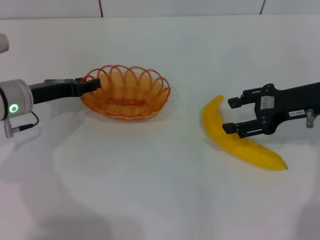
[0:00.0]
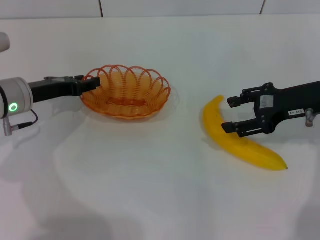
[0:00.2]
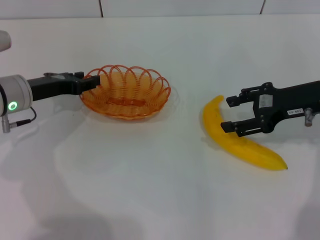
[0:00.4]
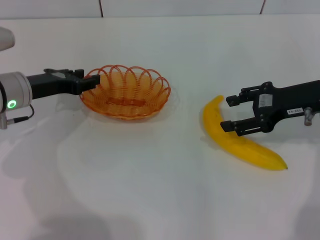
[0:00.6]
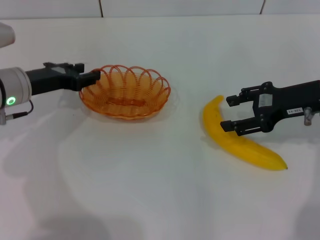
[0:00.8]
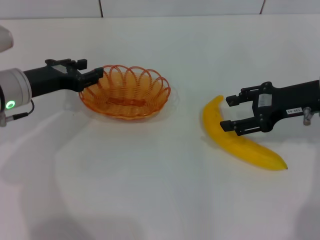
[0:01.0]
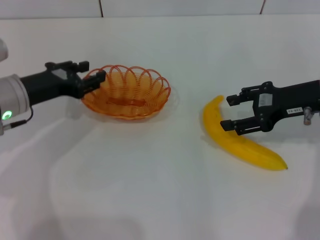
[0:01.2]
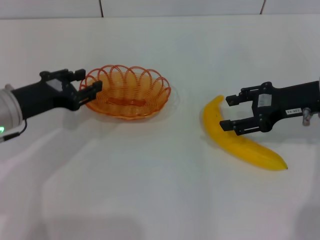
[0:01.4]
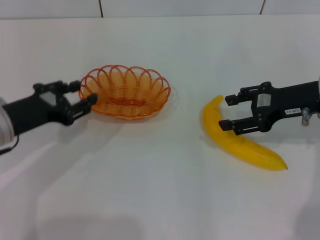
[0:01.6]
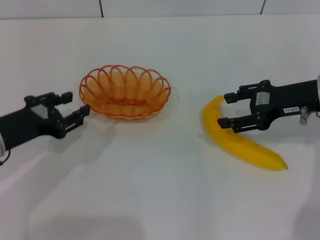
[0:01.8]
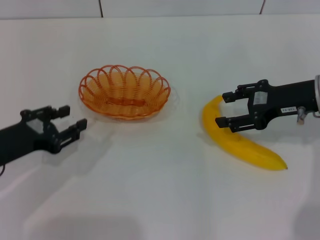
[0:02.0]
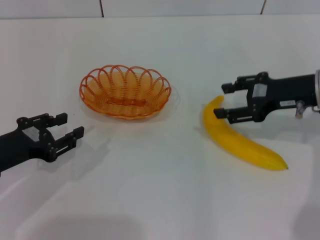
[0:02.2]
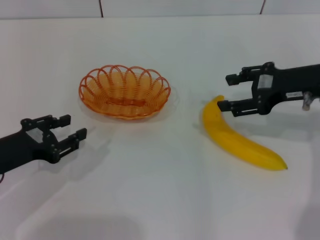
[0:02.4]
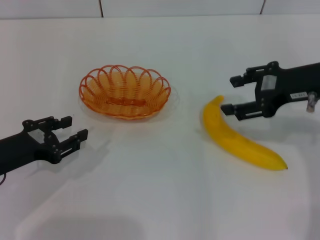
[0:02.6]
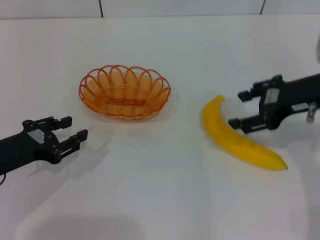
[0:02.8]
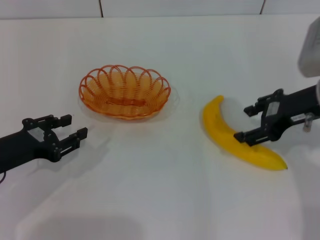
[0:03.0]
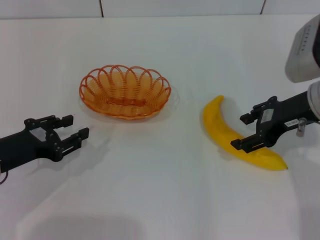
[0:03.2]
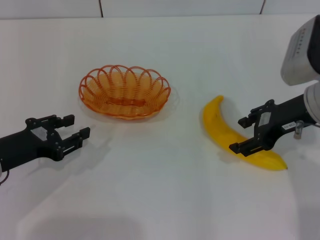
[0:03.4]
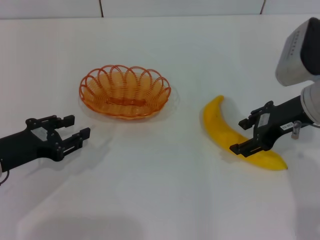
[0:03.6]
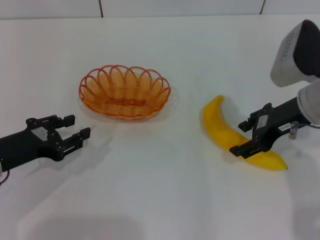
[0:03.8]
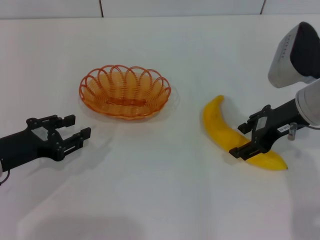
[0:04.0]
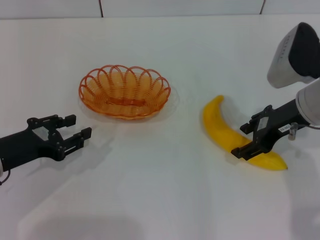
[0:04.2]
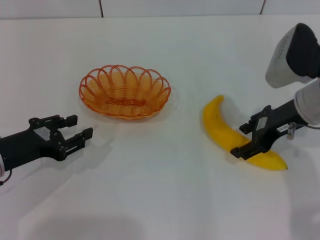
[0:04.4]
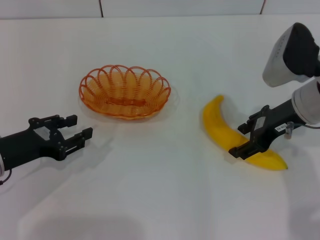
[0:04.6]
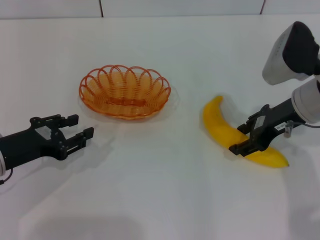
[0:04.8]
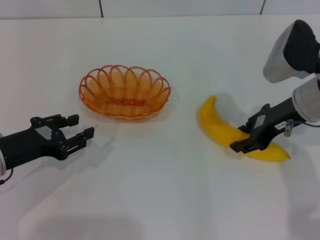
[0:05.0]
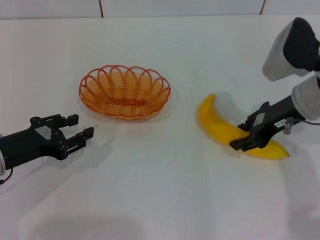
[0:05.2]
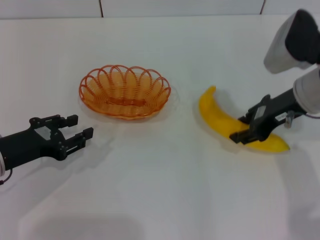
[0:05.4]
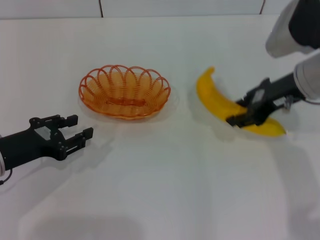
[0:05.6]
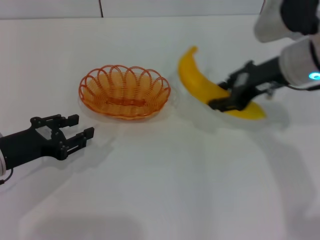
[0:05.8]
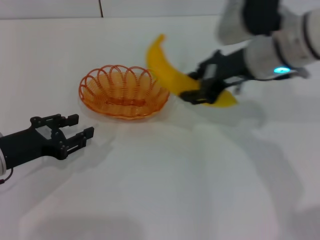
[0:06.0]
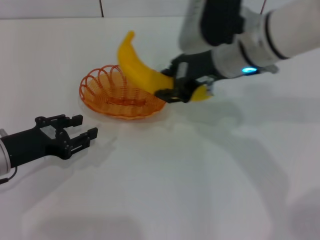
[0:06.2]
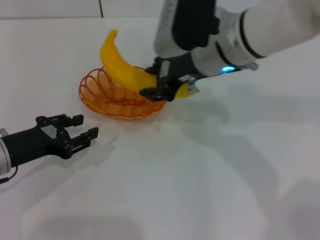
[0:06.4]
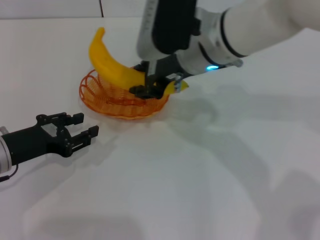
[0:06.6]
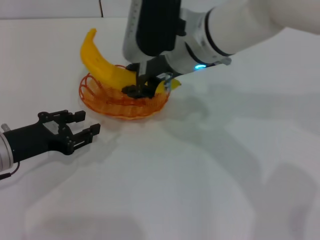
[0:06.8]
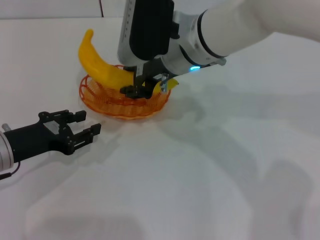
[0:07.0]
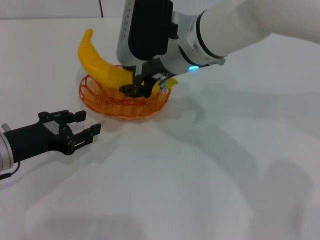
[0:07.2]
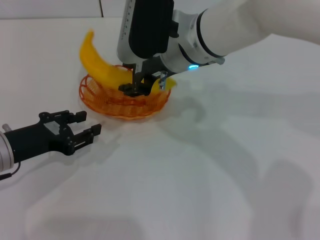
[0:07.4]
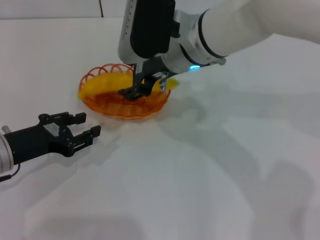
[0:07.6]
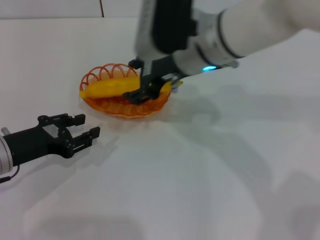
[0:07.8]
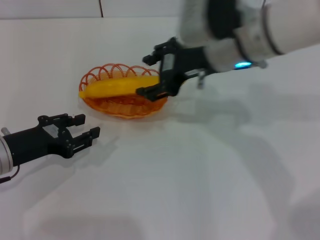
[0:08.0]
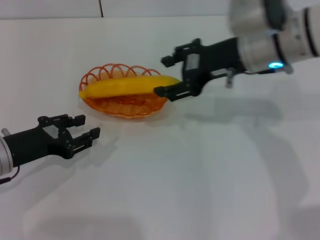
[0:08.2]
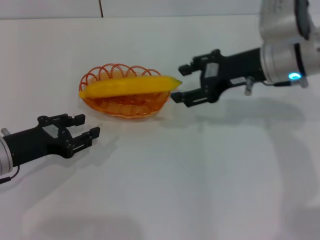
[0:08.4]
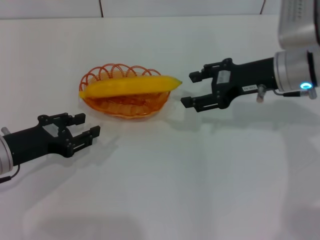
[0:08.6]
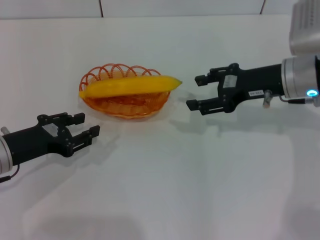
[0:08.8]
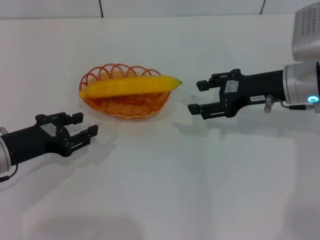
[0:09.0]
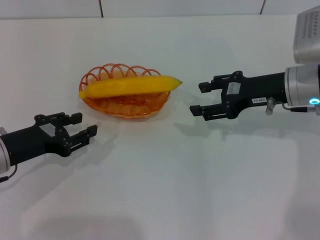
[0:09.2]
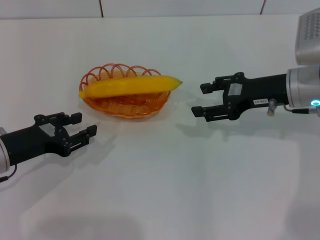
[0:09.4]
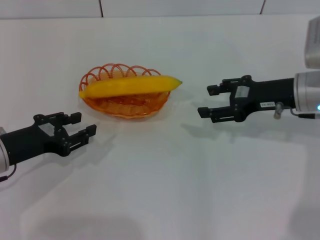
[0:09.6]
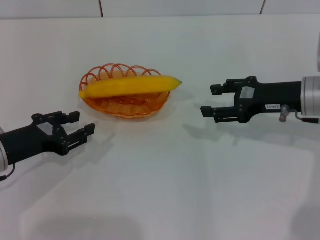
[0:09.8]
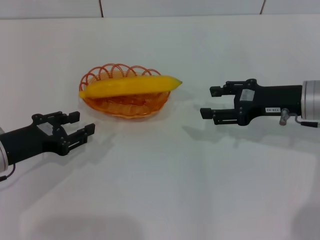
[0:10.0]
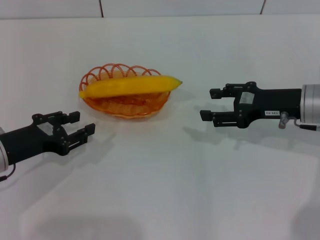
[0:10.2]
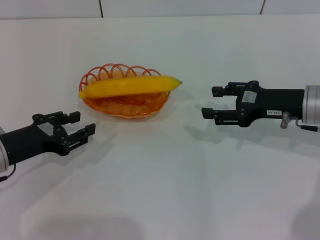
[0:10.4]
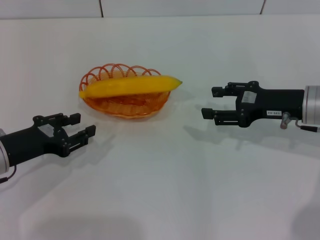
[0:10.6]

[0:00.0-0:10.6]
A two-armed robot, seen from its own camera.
Step, 0:00.8 to 0:05.4: Pick up the banana with the right gripper.
Step, 0:05.6 to 0:08.2: Place the banana into the basket with the right gripper.
0:00.0 to 0:01.6: The left gripper heads backward, covering approximately 10 cm.
0:01.6 to 0:03.0: The left gripper changes place by approximately 5 cm.
0:03.0 to 0:04.6: The grippers move only a little.
0:04.6 to 0:06.0: The right gripper heads to the left and upward, covering roughly 10 cm, and closes.
0:06.0 to 0:07.6: The right gripper is displaced to the left by approximately 10 cm.
0:07.6 to 0:09.0: The right gripper goes roughly 20 cm to the right, and opens its fingers.
0:09.0 to 0:10.6: The right gripper ends up about 5 cm from where it was.

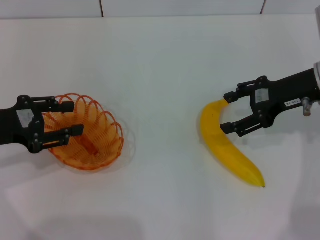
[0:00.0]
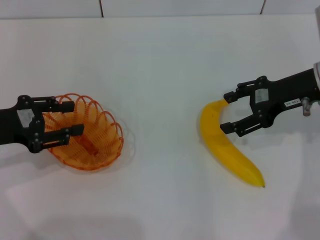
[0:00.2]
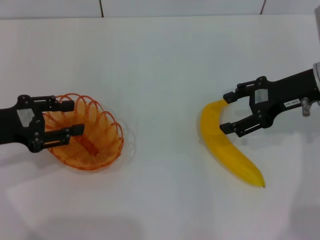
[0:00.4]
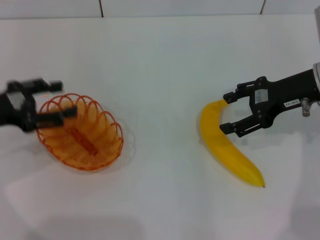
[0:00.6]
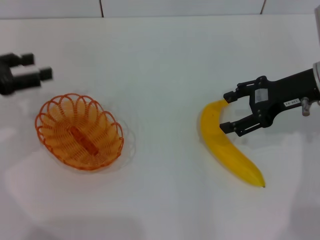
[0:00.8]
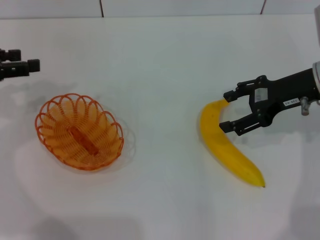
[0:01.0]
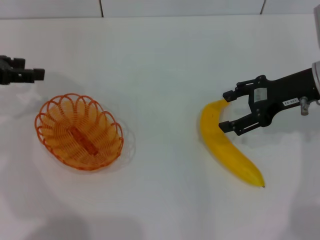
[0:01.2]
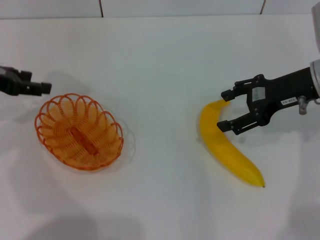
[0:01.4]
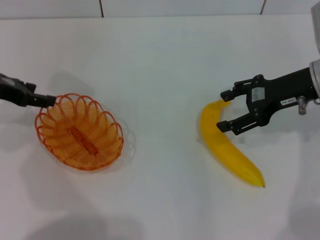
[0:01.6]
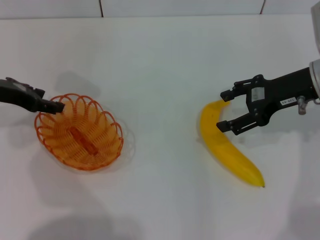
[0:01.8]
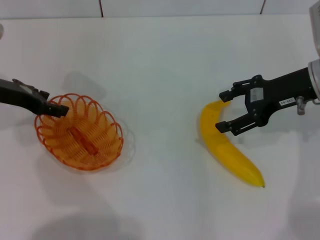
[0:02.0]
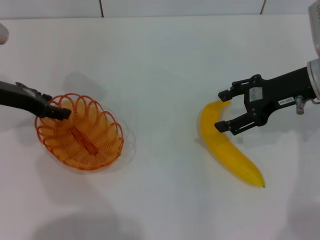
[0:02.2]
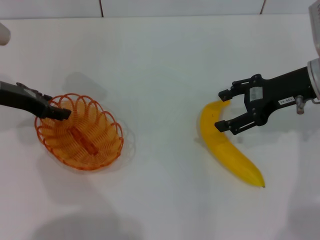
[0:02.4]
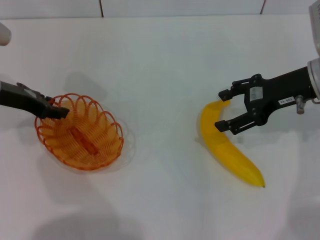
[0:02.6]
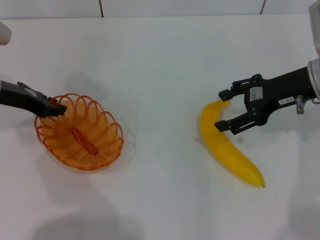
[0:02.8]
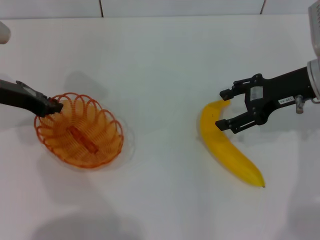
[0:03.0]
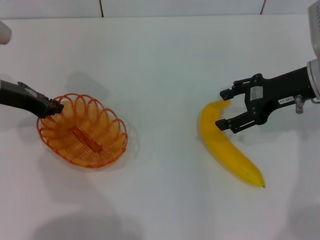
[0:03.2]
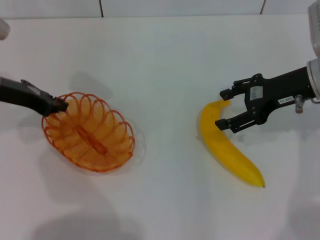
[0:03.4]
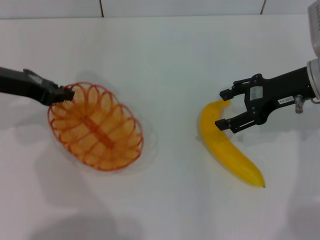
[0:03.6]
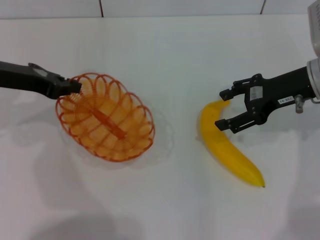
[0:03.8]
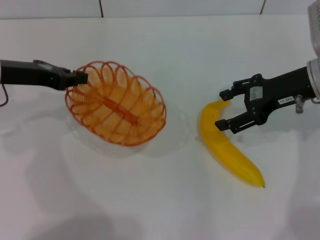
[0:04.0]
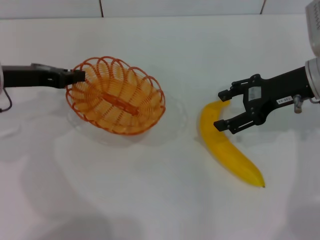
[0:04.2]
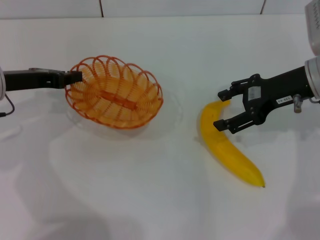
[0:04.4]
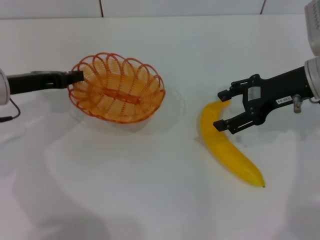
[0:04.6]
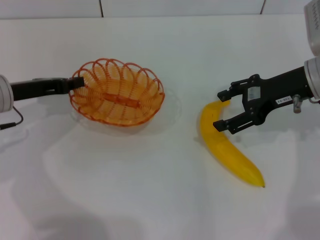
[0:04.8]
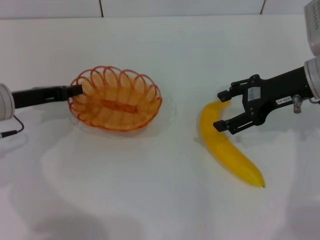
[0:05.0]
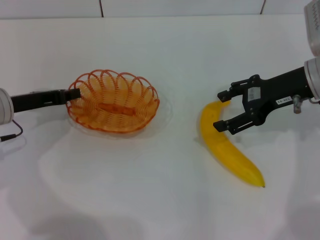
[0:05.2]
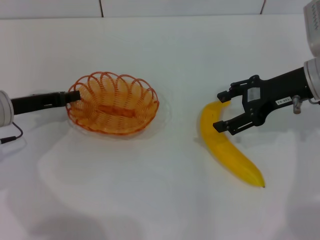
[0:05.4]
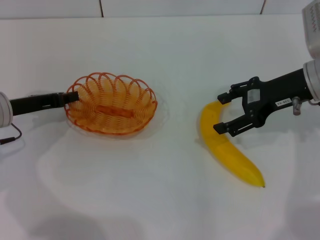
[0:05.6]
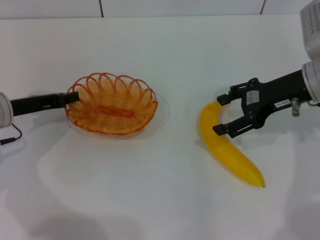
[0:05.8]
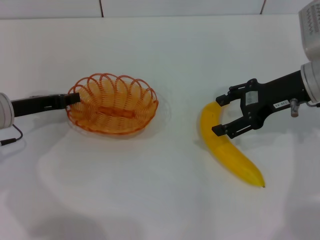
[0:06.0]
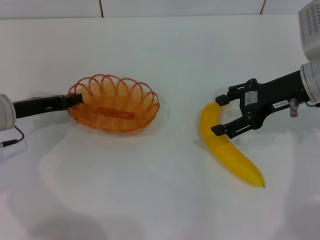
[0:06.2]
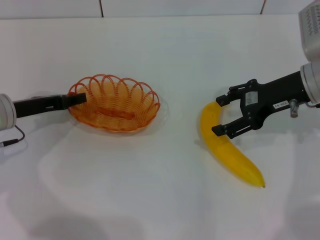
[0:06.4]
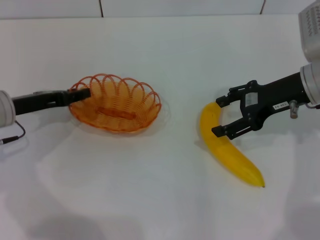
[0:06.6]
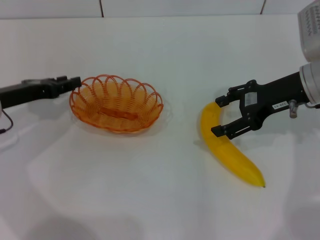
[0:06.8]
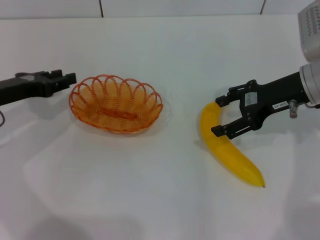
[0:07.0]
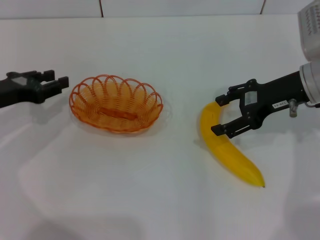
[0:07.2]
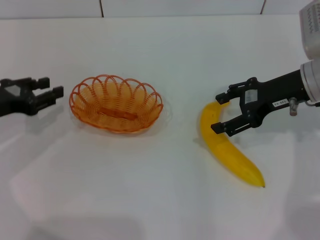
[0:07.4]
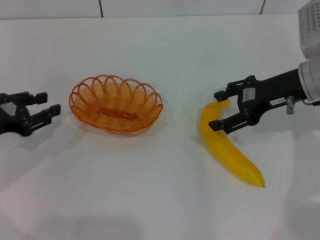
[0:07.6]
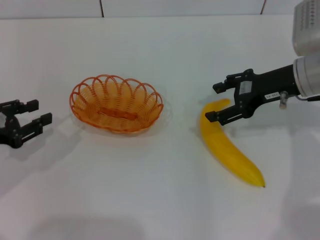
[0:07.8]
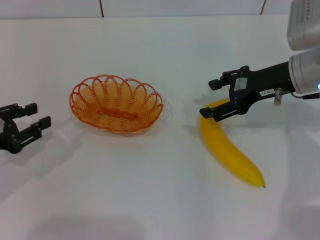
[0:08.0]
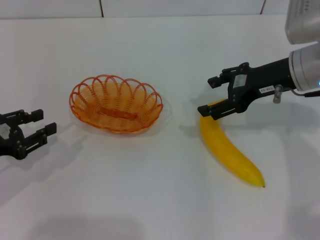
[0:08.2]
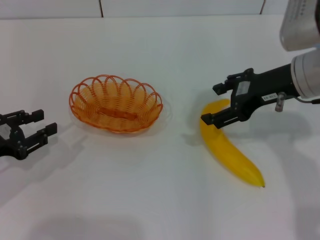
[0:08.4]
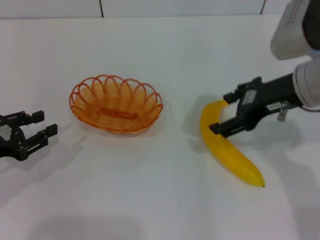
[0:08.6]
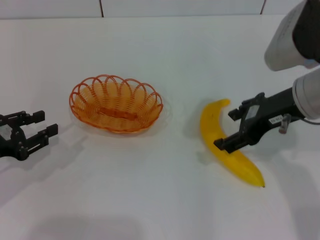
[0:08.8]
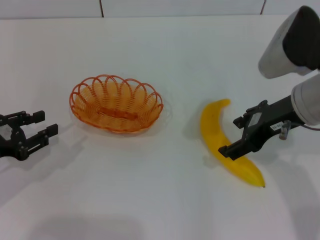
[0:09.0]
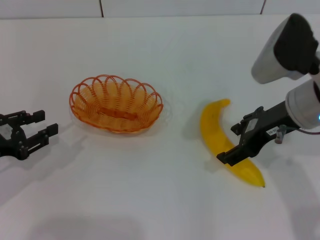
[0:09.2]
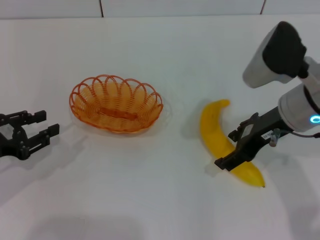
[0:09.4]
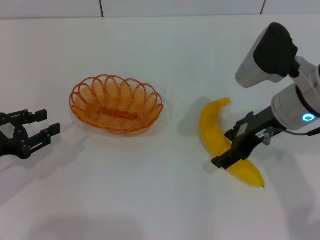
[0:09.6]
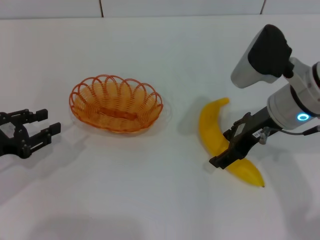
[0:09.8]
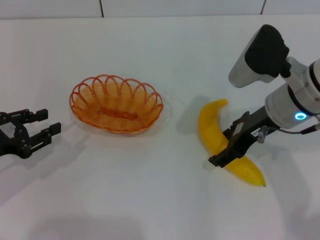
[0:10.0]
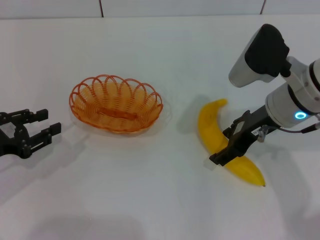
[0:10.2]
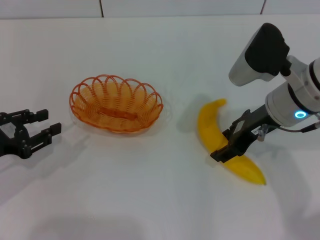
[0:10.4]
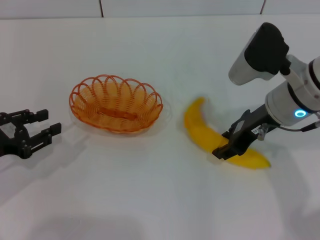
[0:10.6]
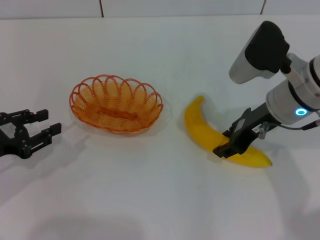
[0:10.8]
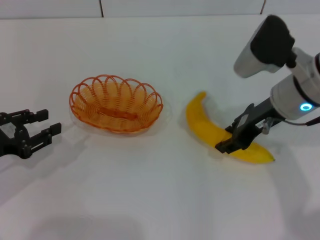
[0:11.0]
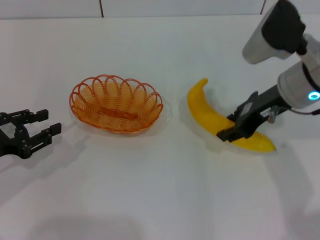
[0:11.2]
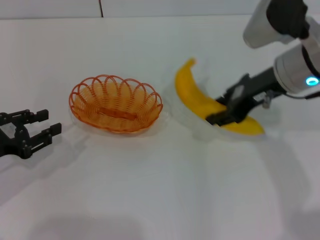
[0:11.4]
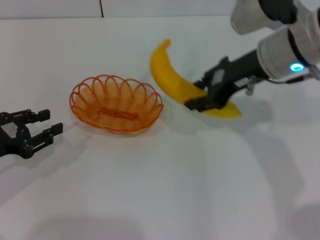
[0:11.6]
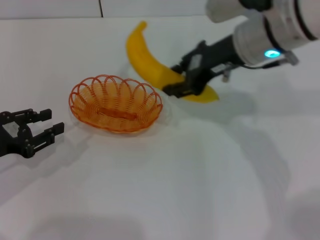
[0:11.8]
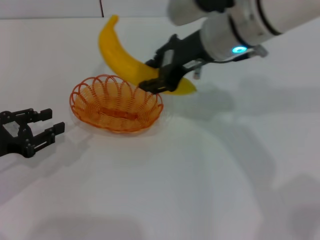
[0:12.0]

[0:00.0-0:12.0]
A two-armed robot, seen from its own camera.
Step, 0:03.8 to 0:07.4: Place the basket in the center of view with the left gripper.
Step, 0:07.6 to 0:11.0: Pick up the banana with the right gripper.
0:00.0 to 0:01.6: The left gripper moves forward, about 10 cm.
0:01.6 to 0:03.0: The left gripper closes up.
0:04.4 to 0:06.0: The left gripper ends up some 5 cm from where it was.
0:06.0 to 0:07.6: The left gripper is displaced backward by roughly 5 cm, and opens its fingers.
0:07.6 to 0:09.0: The right gripper travels backward by roughly 5 cm.
0:09.0 to 0:10.4: The grippers stay close to where they were, moving slightly.
0:10.4 to 0:12.0: The right gripper is displaced to the left and upward by about 10 cm, and closes up.
